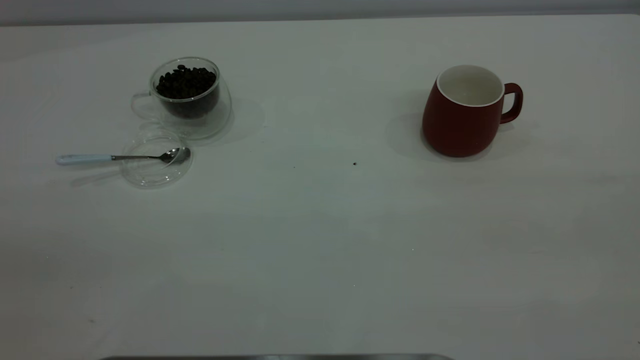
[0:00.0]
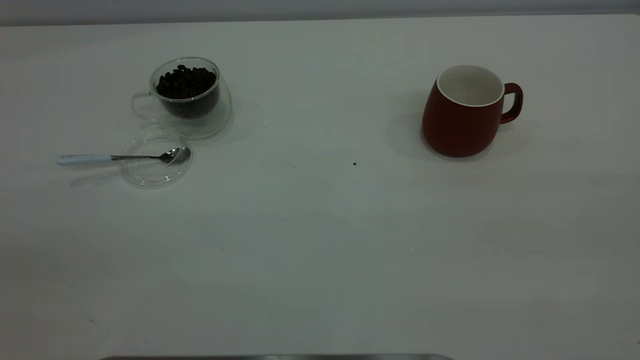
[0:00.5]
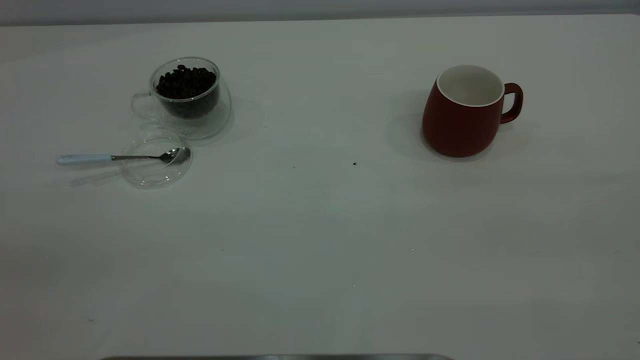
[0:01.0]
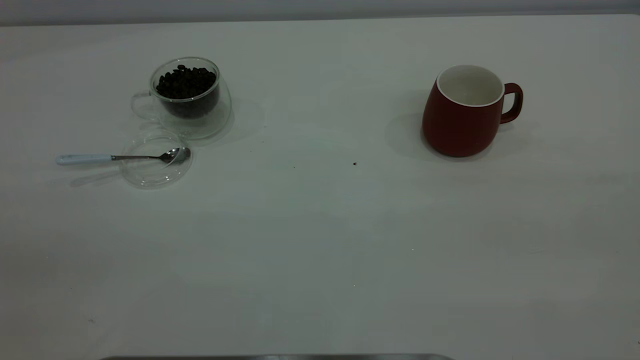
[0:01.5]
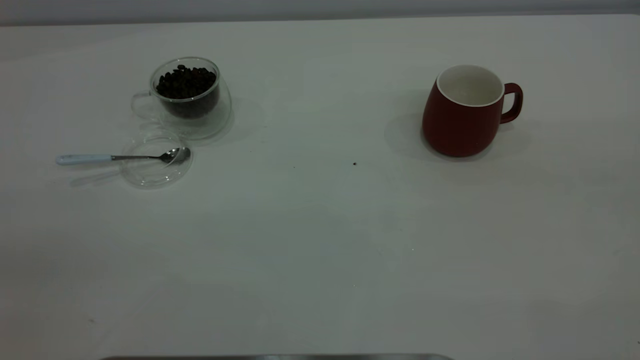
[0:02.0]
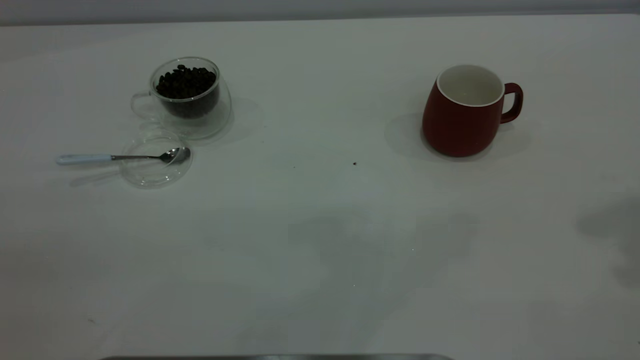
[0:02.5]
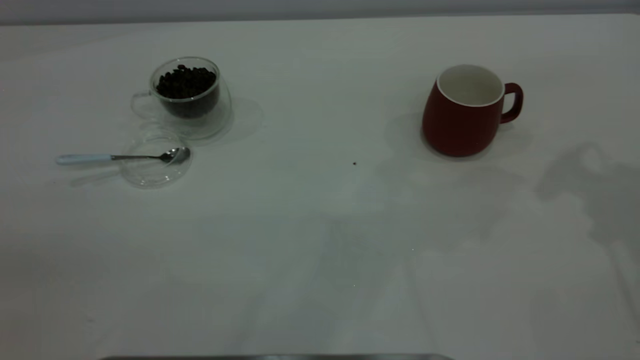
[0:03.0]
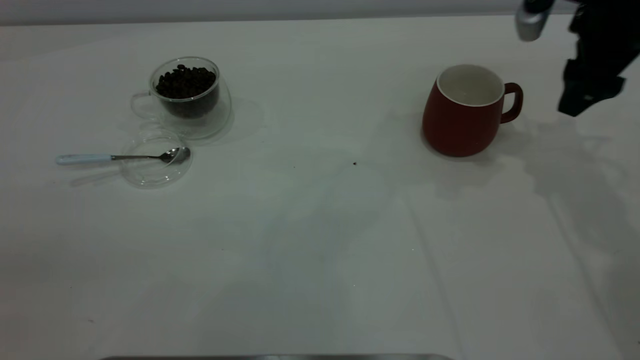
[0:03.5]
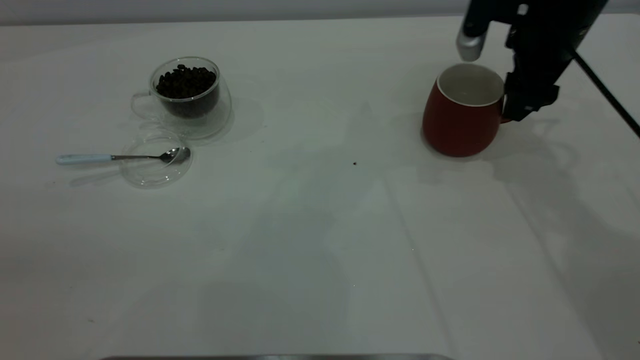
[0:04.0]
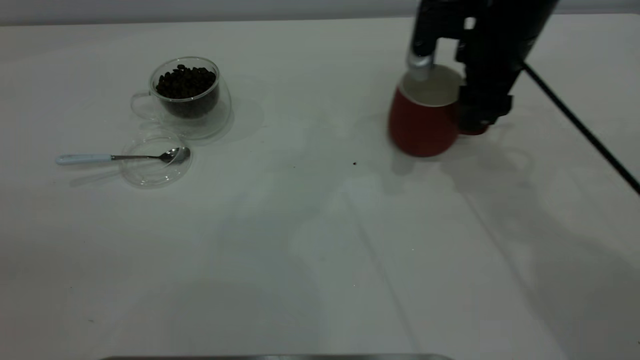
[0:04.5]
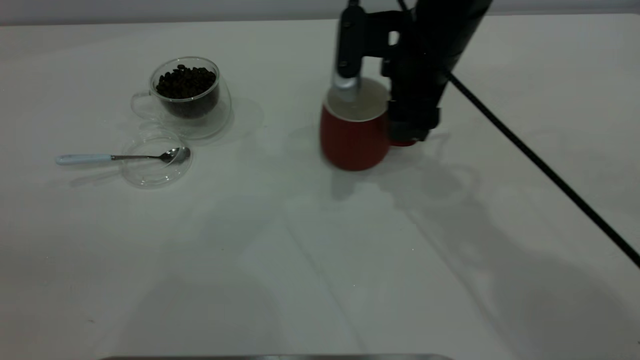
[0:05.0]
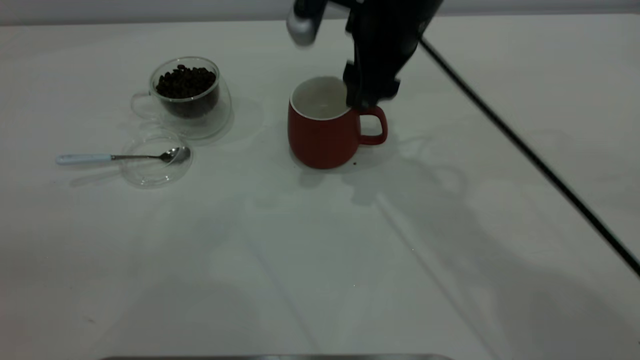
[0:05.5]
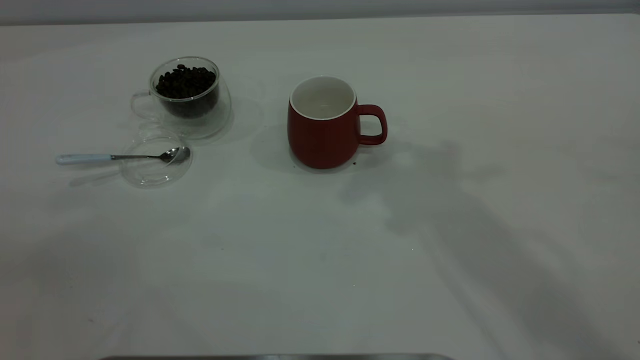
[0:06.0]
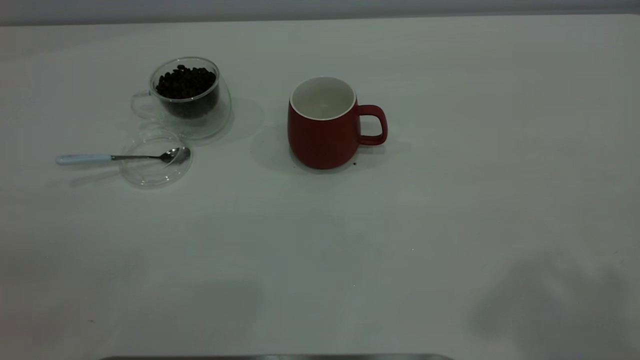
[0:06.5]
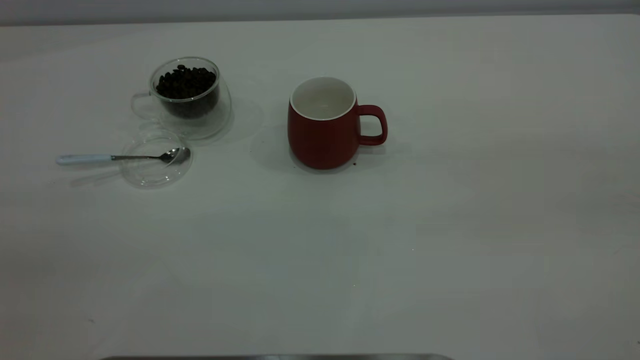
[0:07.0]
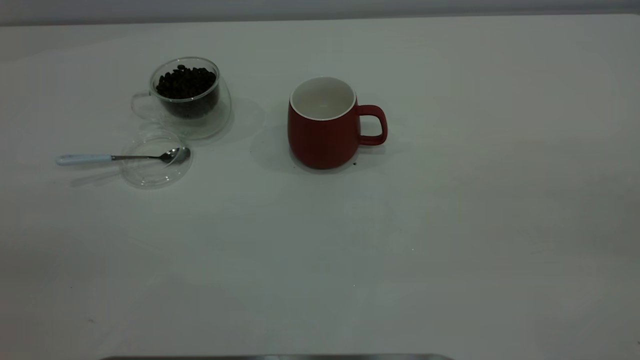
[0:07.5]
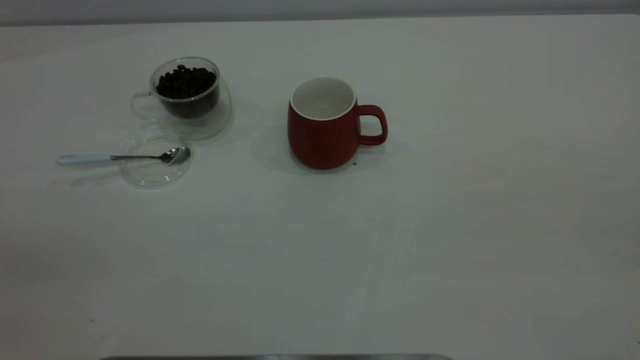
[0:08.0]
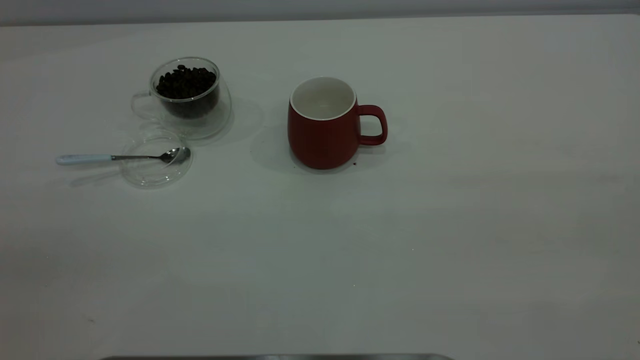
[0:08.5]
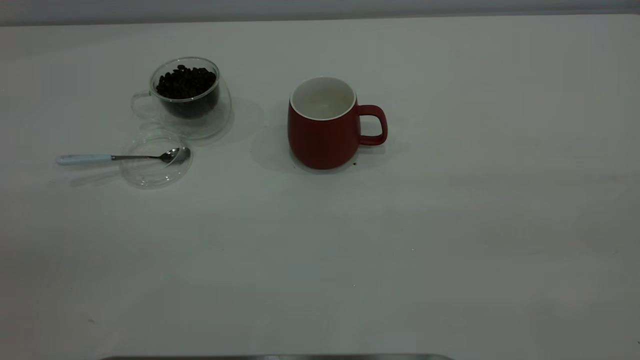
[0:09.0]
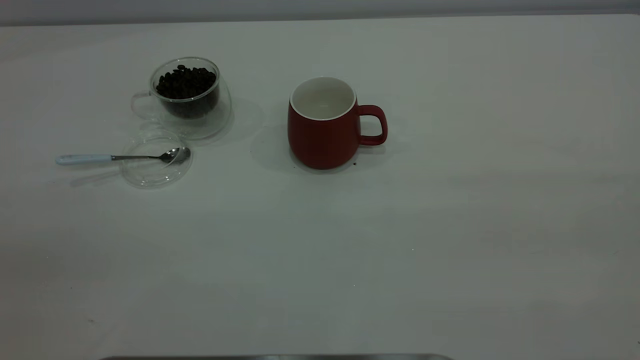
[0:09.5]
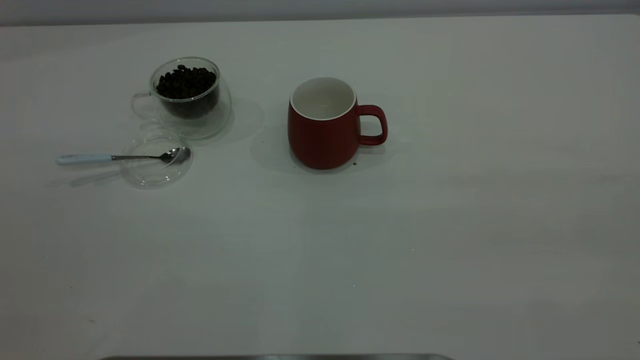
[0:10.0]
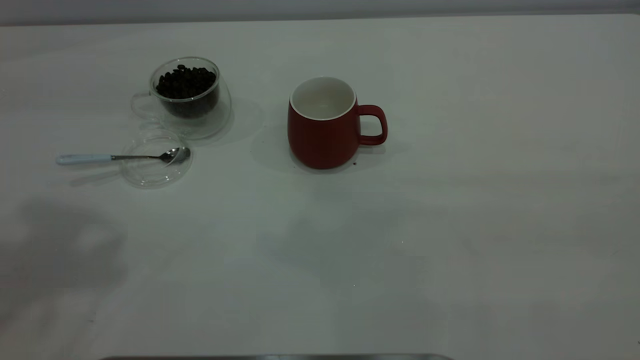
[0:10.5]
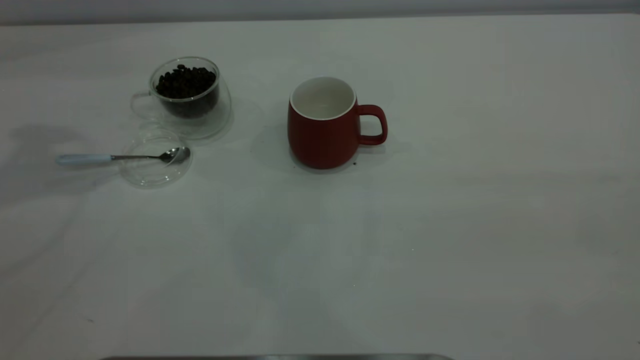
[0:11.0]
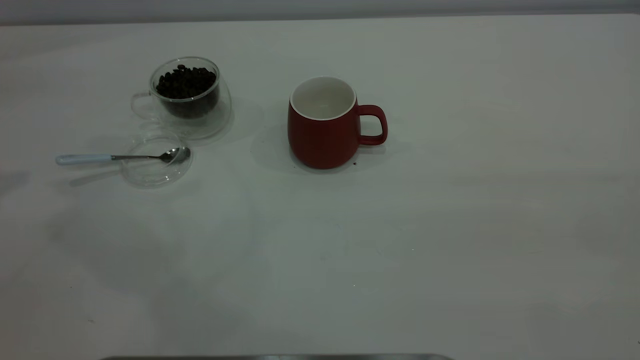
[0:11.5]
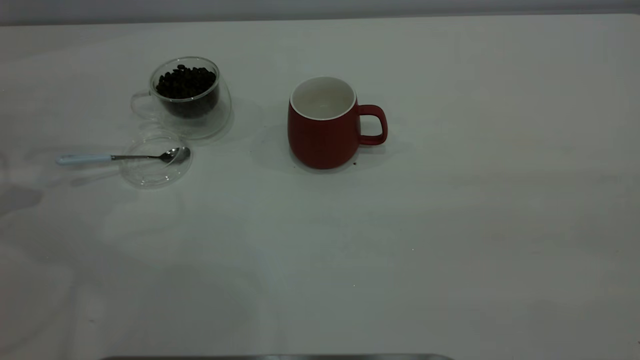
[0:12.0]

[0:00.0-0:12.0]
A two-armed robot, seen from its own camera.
Task of the whole recording: the right gripper place the red cup in the center of the table, the left gripper take the blue spoon from the cup lid and scoop out the coffee beans from the coffee cup and put them into the red cup, the left gripper put the spoon back into the cup lid.
Step, 0:00.0 to 0:05.5: Move the cup to the center of view.
0:02.0 to 0:04.0: The right gripper travels forward and downward by some 50 cm.
0:04.0 to 0:06.0: The right gripper heads upward and backward, covering about 30 cm.

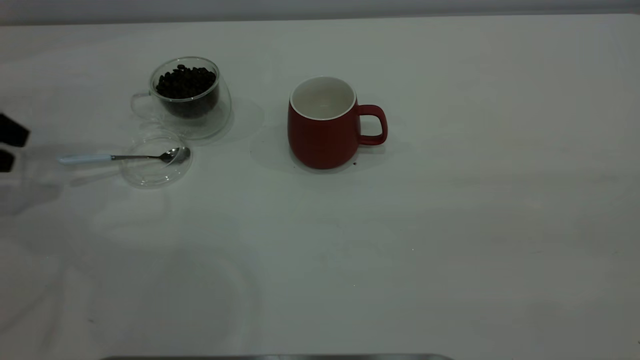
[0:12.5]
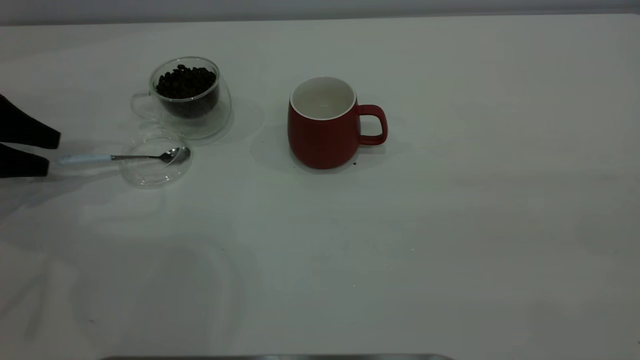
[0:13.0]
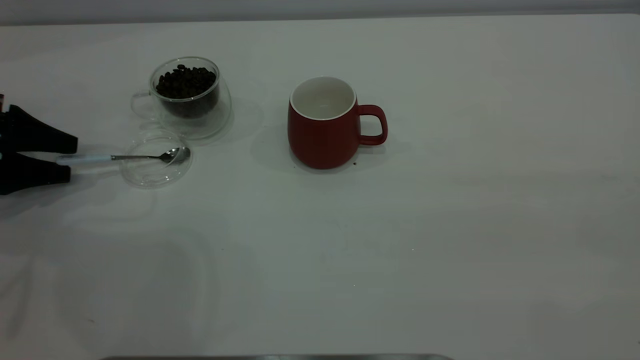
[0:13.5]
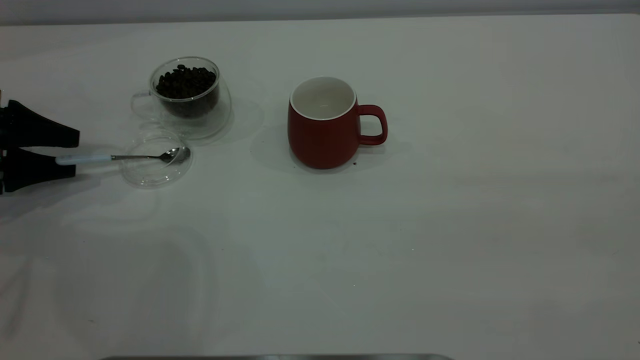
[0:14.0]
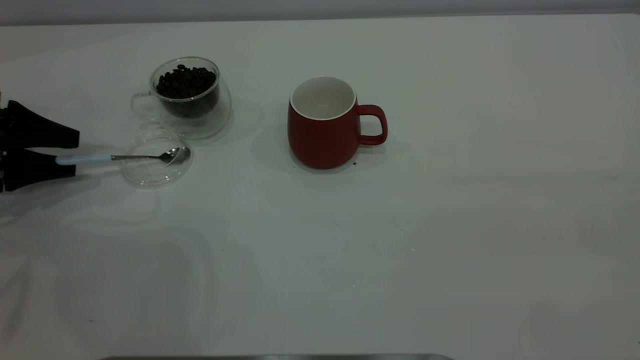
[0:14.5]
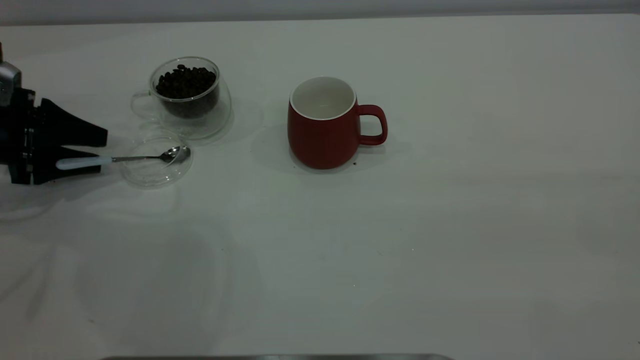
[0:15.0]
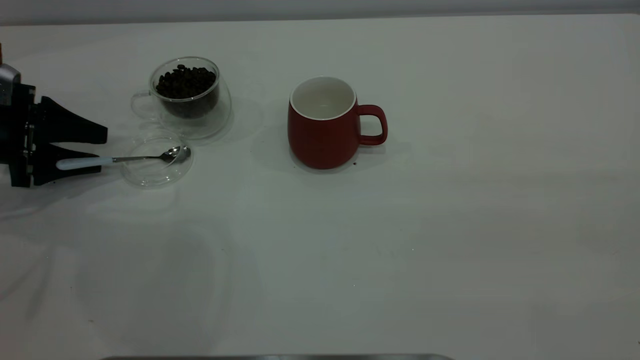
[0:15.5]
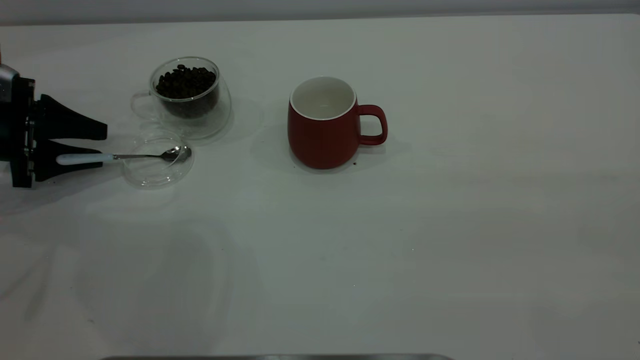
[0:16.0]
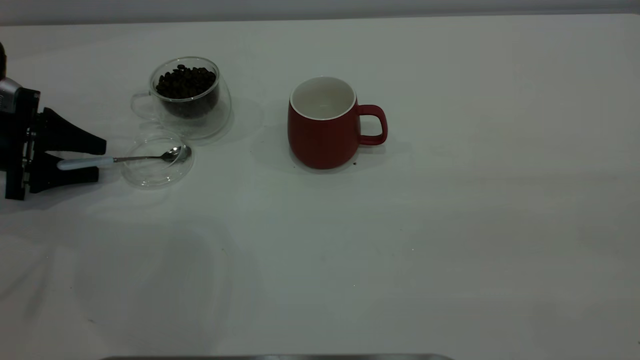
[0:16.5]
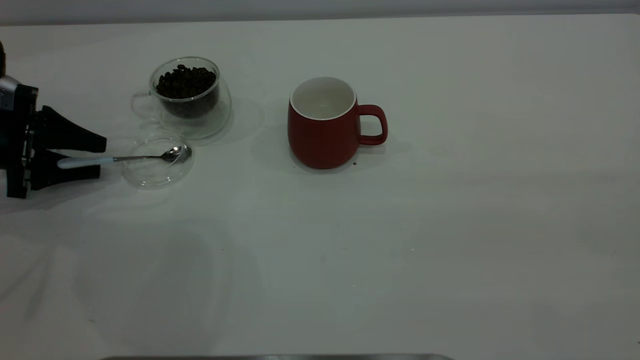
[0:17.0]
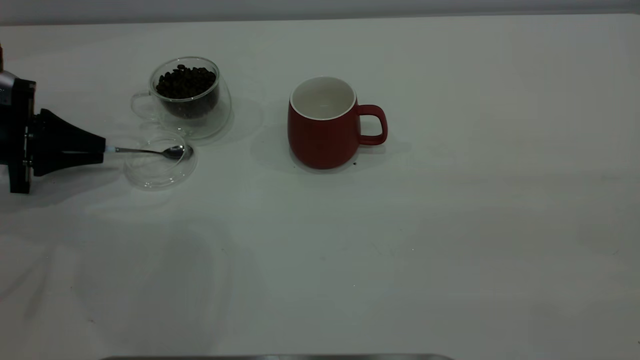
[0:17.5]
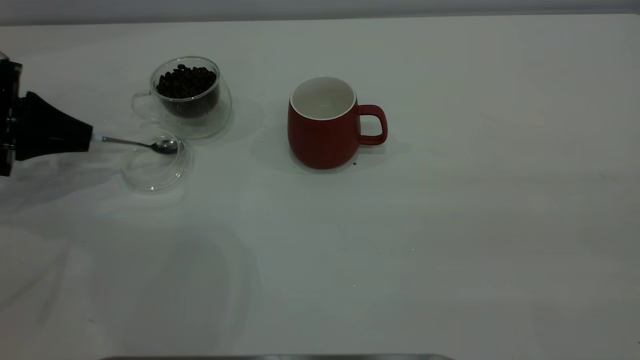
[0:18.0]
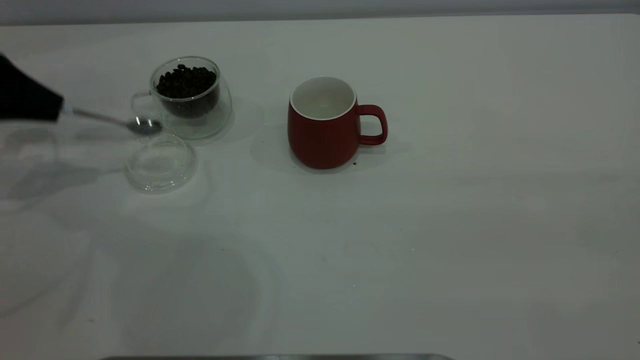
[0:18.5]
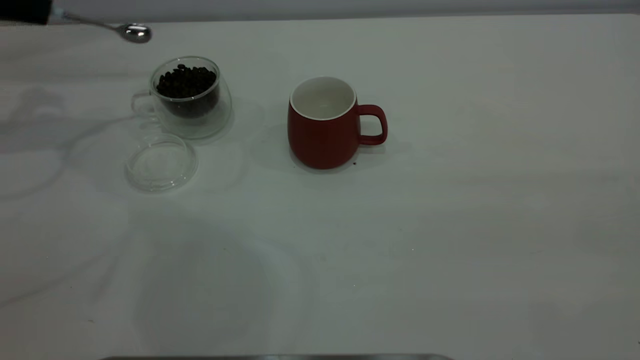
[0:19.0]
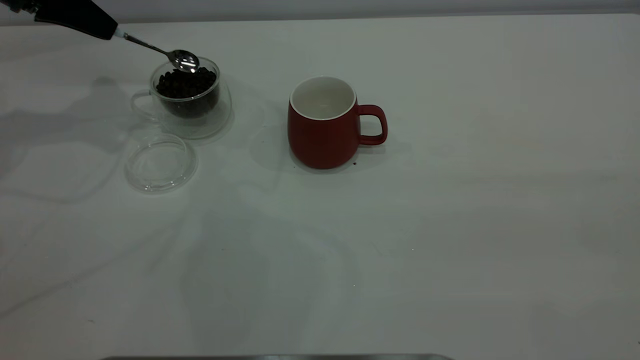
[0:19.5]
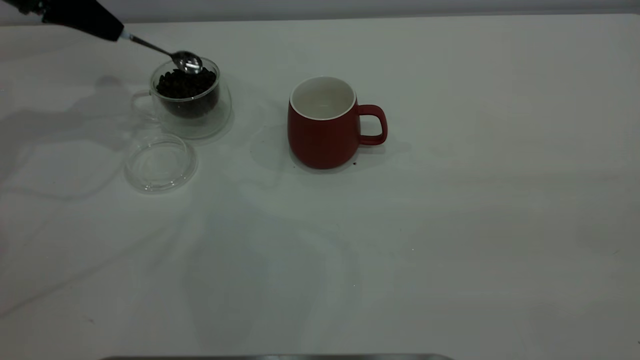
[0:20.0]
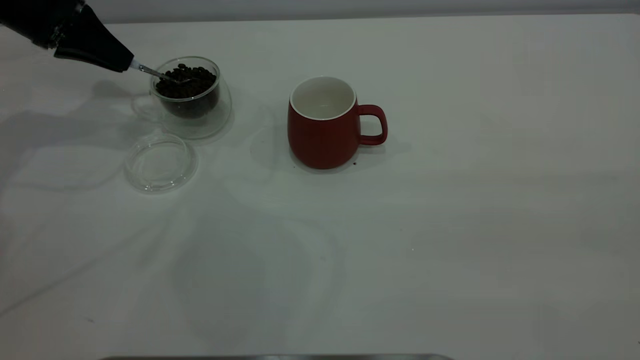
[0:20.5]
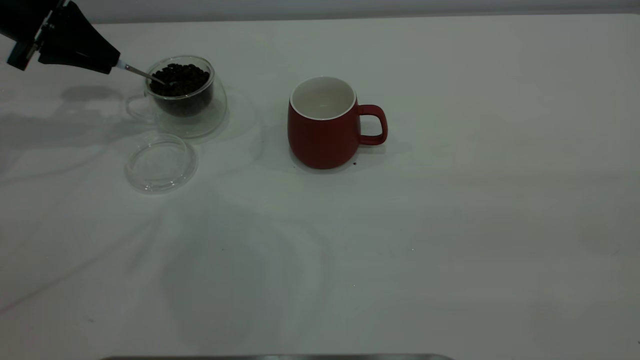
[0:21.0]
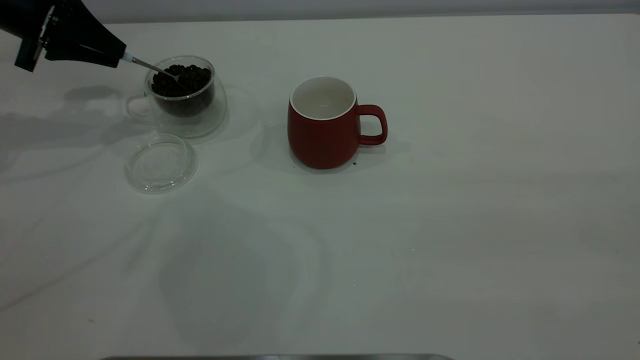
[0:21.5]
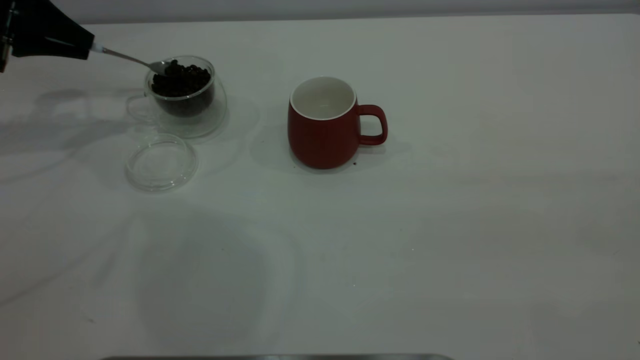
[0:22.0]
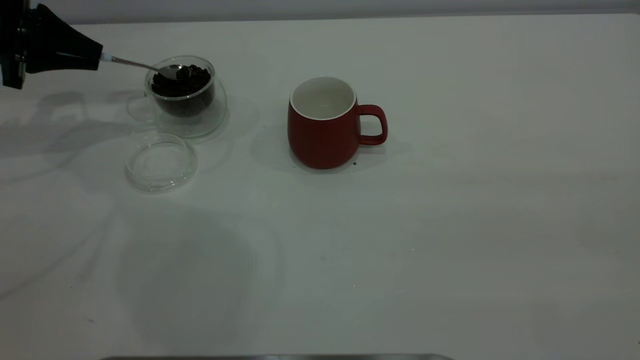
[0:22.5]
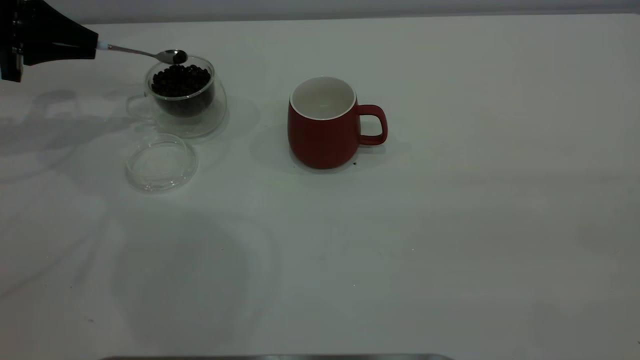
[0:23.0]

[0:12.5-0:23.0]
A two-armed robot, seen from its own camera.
Task of the whole recording: the right gripper place the red cup in the center of the table, the left gripper take the blue spoon from the cup lid and scoop out the coffee beans from the coffee cup and put them into the red cup, the left gripper put the spoon back into the cup lid.
Step, 0:12.5 to 0:18.0: Pick up the spoon.
0:12.5 to 0:14.5: The left gripper is displaced downward by some 5 cm.
0:14.5 to 0:16.5: The grippers stay close to where they were, moving slightly.
0:16.5 to 0:19.0: The left gripper goes some 20 cm upward and forward, and closes.
0:19.0 to 0:21.0: The left gripper moves about 5 cm.
0:21.0 to 0:23.0: There are only small adjustments of the grippers.
